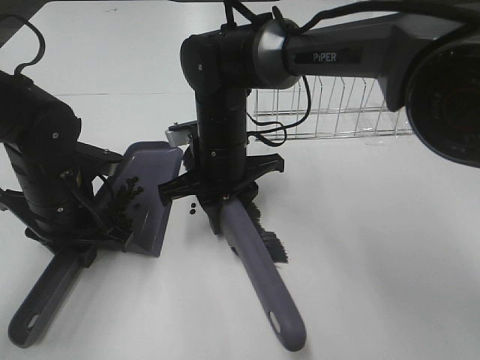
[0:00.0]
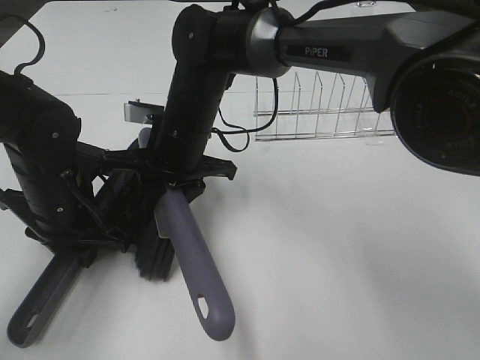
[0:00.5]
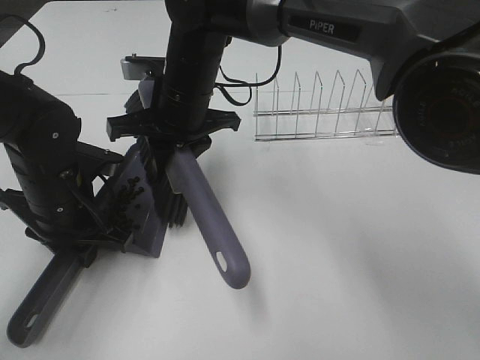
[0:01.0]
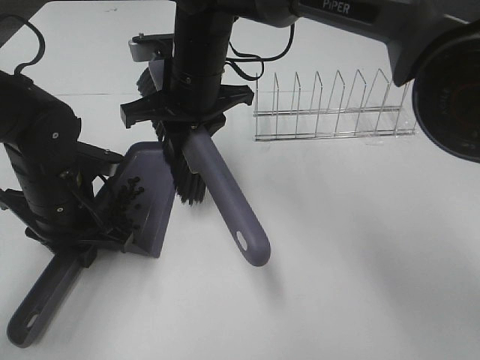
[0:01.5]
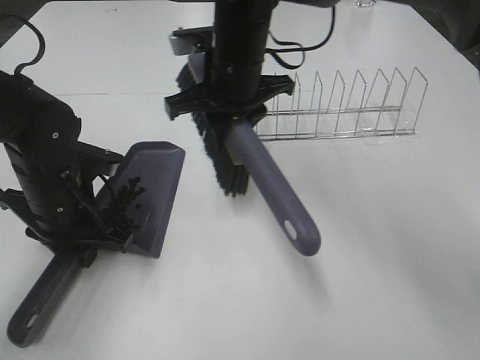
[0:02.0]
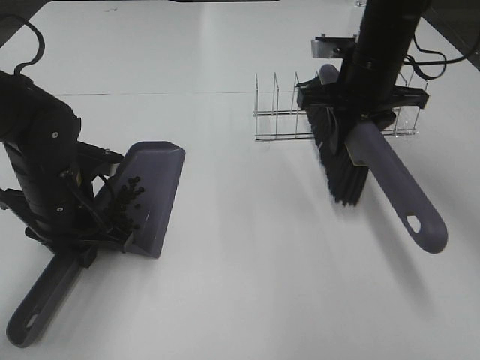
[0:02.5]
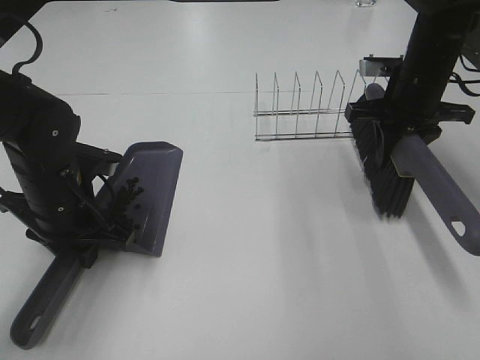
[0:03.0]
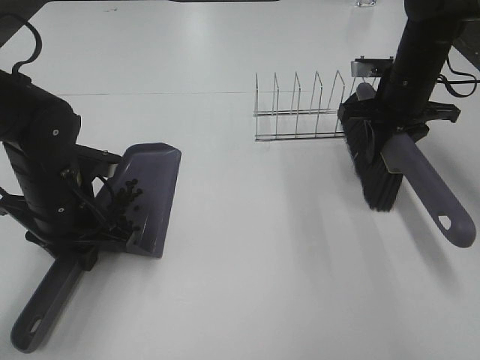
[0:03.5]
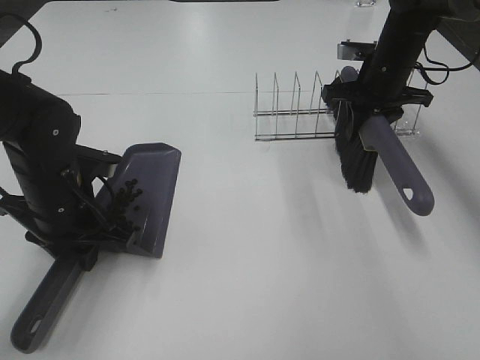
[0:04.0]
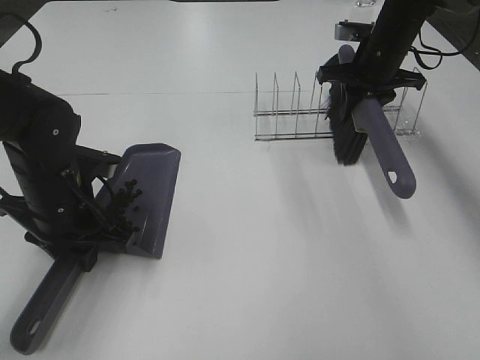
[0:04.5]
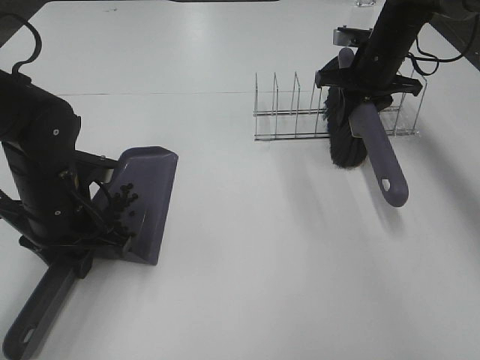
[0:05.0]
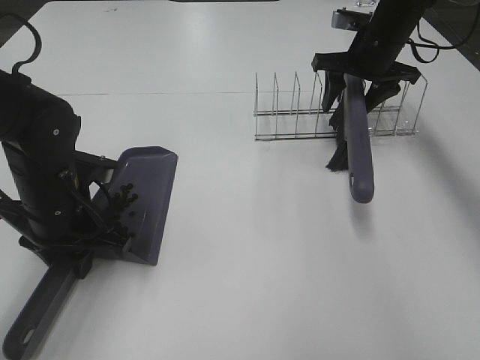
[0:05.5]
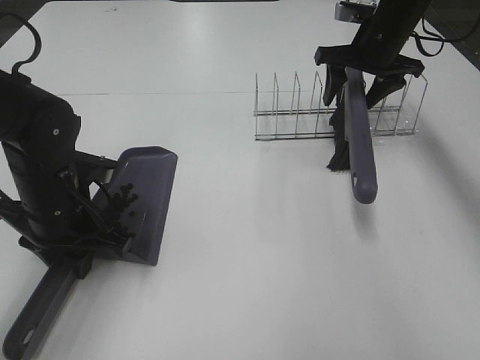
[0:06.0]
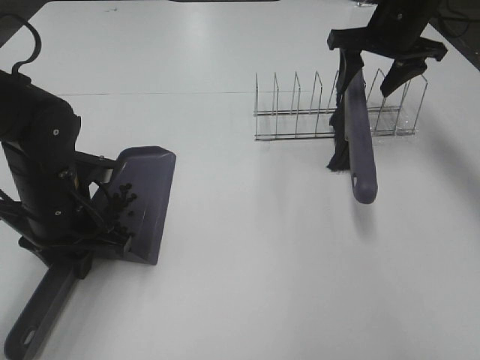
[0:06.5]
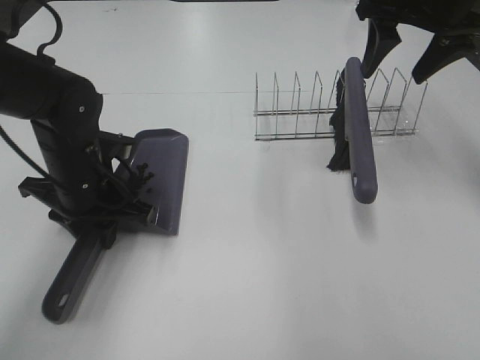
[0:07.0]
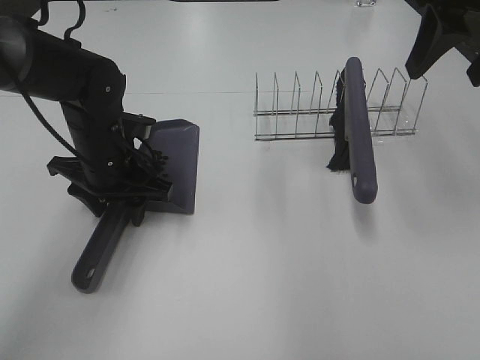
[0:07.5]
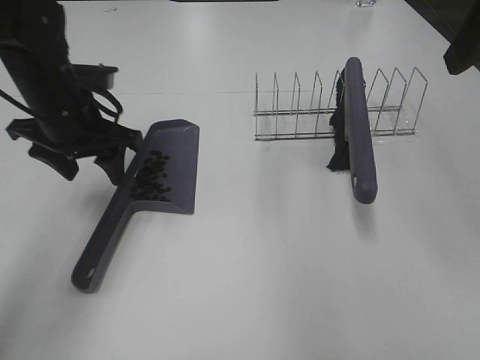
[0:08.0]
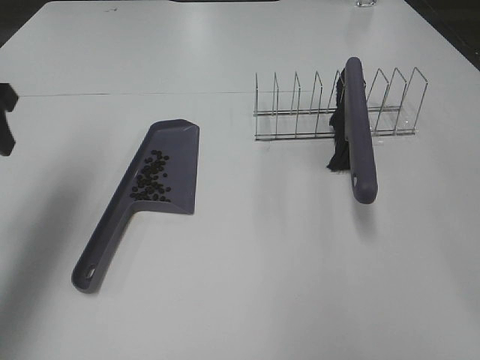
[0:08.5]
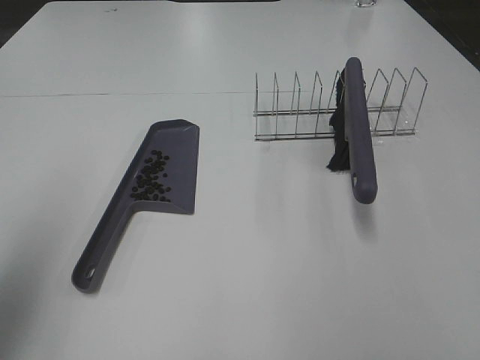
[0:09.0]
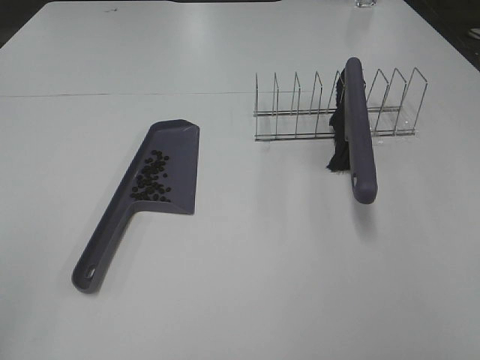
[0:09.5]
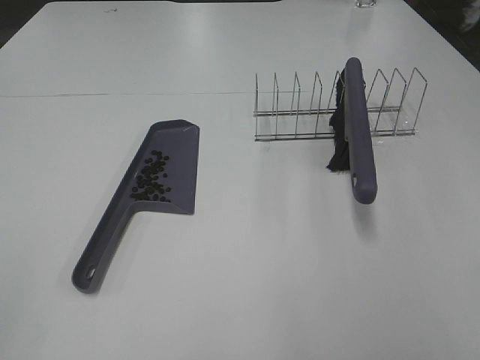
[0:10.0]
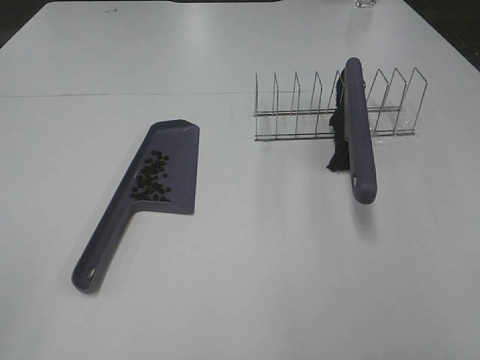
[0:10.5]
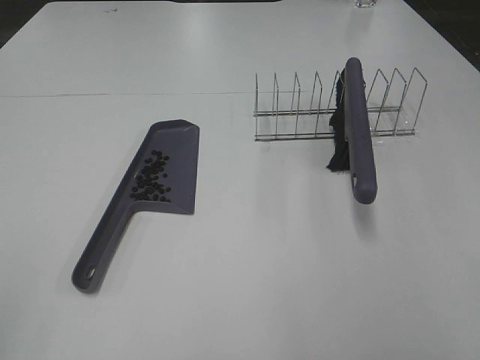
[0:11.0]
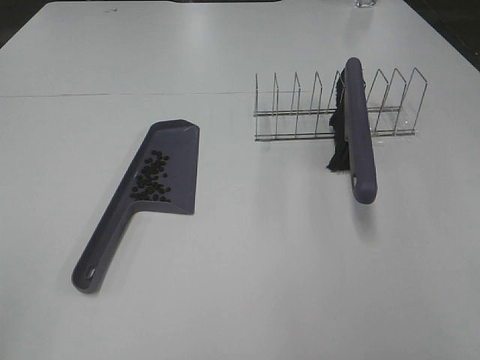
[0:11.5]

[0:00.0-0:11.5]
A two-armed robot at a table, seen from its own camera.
Task of the whole recording: Sweep Coffee Bean.
Step, 0:01.5 to 0:06.0: Right hand:place the broom on the rack.
Step, 0:06.5 to 0:07.5: Left hand:place the dustpan on the table.
0:00.0 to 0:02.0: The right gripper moves upward, about 10 cm.
0:02.0 to 0:04.0: The right gripper shifts approximately 20 cm to the right.
0:04.0 to 0:06.0: The right gripper opens its fingers.
0:06.0 to 0:07.5: The right gripper heads backward and upward, covering about 25 cm. Meanwhile the left gripper goes about 5 cm forward.
0:07.5 to 0:09.5: The left gripper heads backward, upward and to the left, covering approximately 40 cm; the right gripper shifts roughly 35 cm backward.

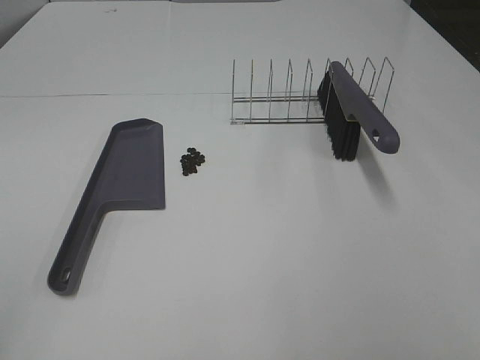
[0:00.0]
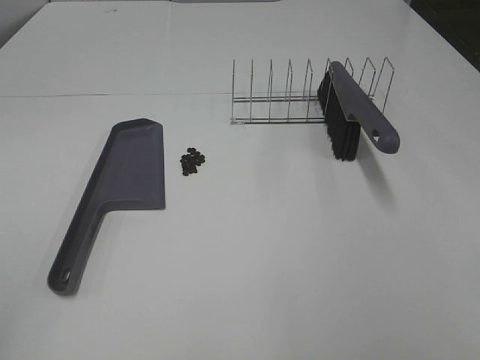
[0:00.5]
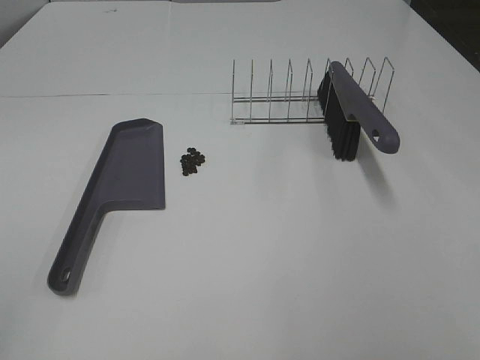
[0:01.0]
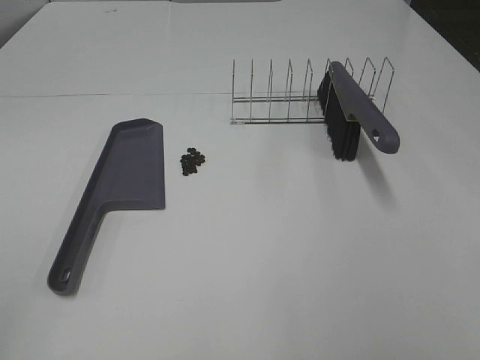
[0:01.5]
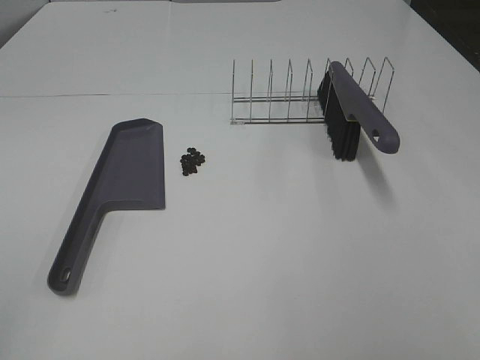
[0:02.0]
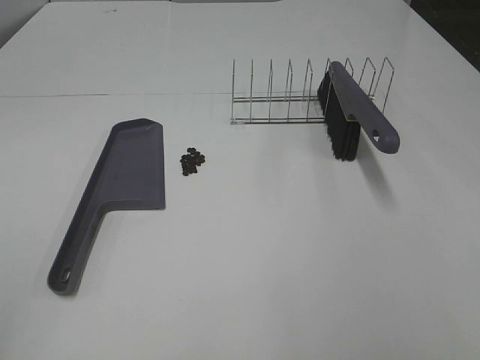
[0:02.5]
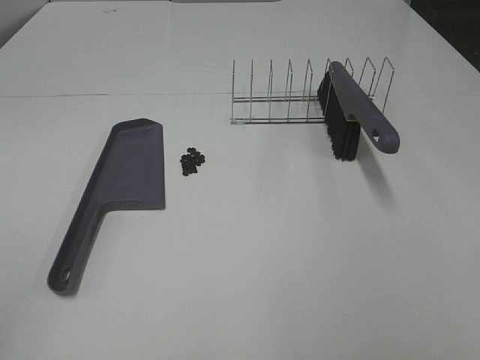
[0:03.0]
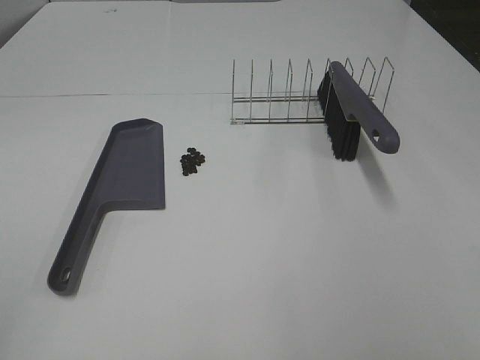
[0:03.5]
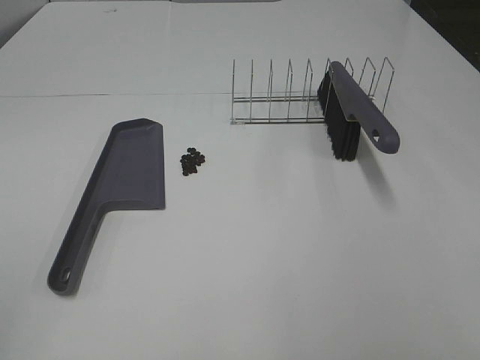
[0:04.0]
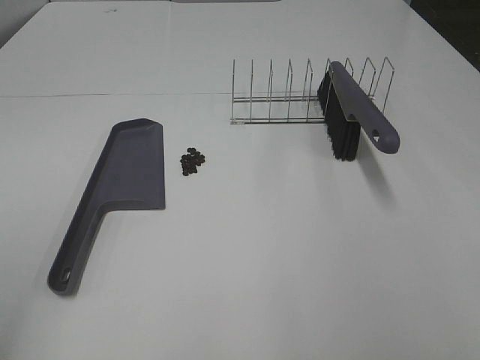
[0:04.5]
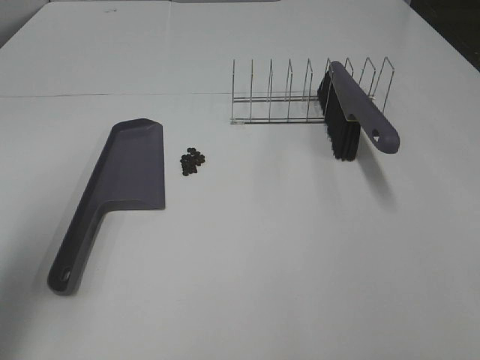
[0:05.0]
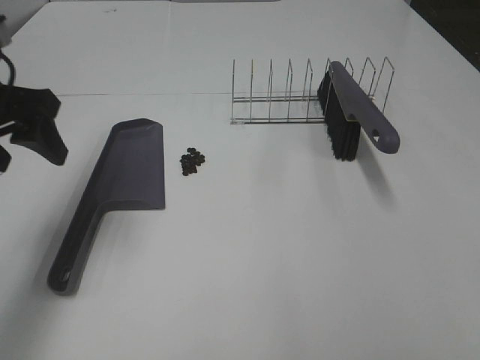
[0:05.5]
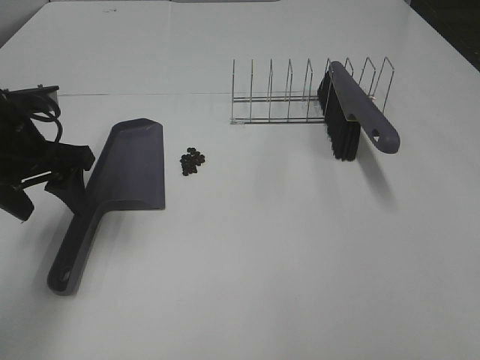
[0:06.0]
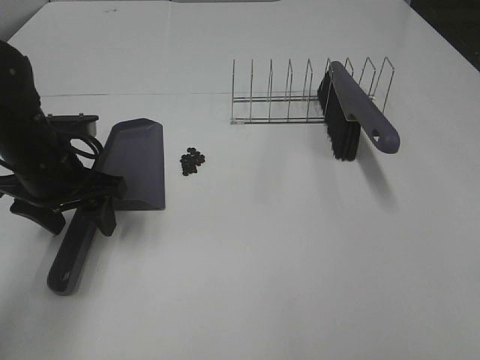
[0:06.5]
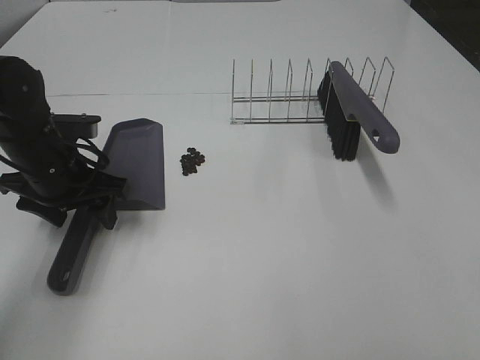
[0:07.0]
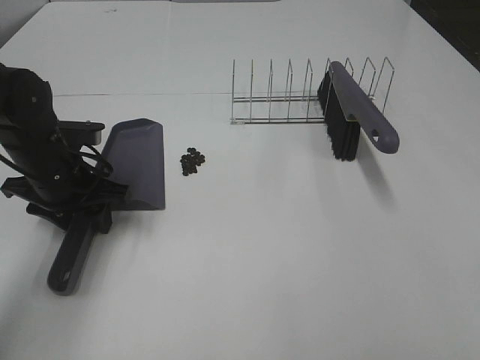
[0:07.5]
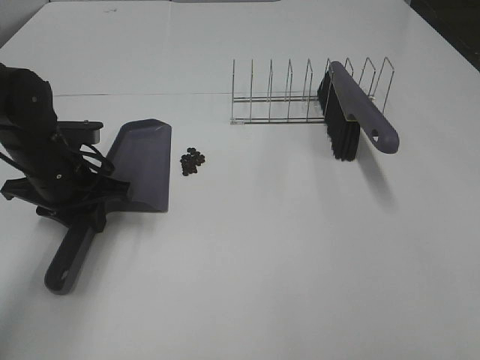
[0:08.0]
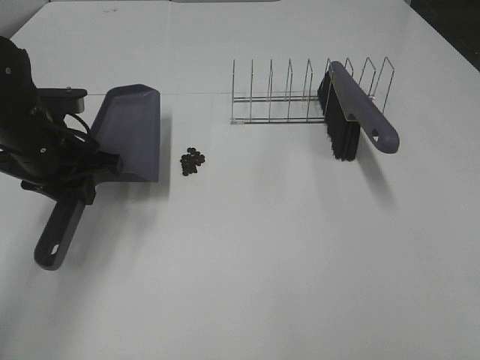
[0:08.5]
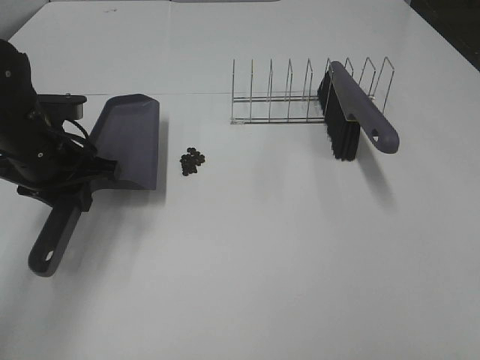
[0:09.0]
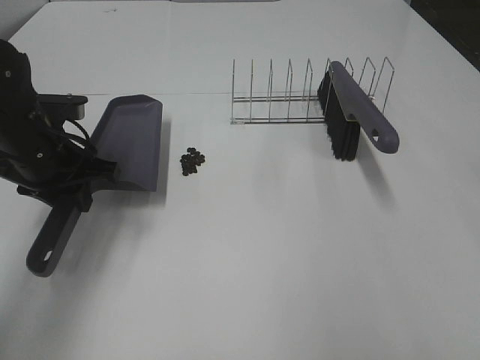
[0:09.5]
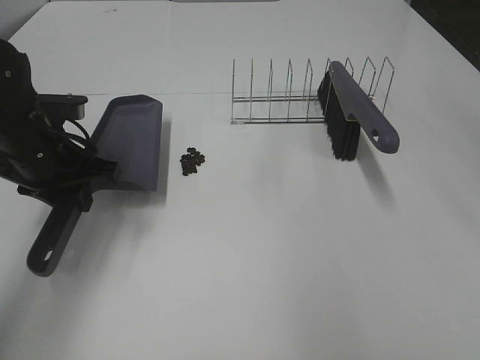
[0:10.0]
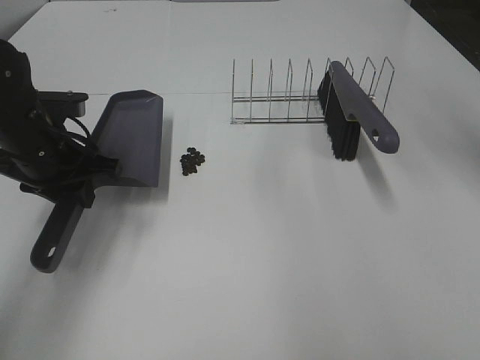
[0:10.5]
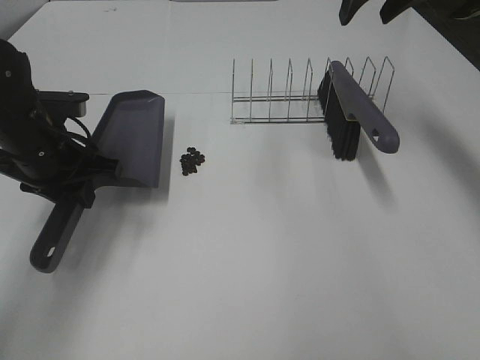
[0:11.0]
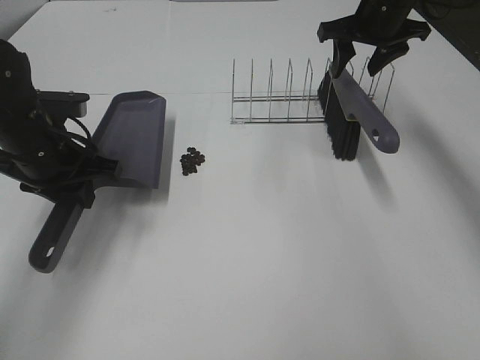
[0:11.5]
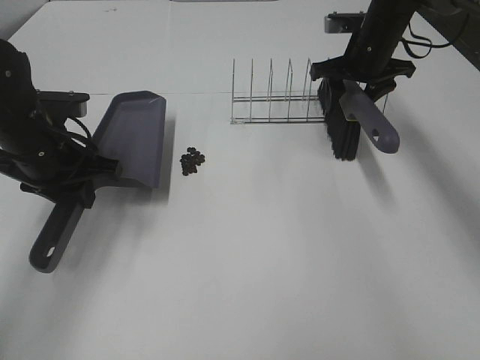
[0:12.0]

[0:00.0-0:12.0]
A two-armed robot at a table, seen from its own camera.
Task of the whole recording: Sweep Coffee Bean.
Step, 0:00.0 to 0:07.5: Left hand: grab the dustpan.
0:00.0 to 0:04.0: Both grippers stay about where they are.
0:04.0 to 0:06.0: The left gripper goes about 30 cm forward.
0:06.0 to 0:08.0: The left gripper is displaced downward by roughly 10 cm, and closes.
0:10.0 to 0:12.0: The right gripper travels forward and downward by about 35 cm, and closes.

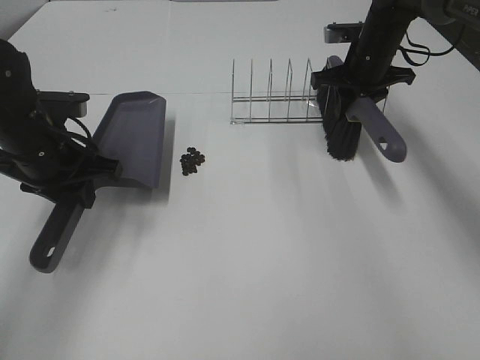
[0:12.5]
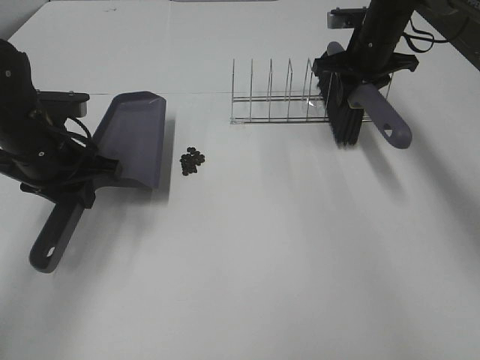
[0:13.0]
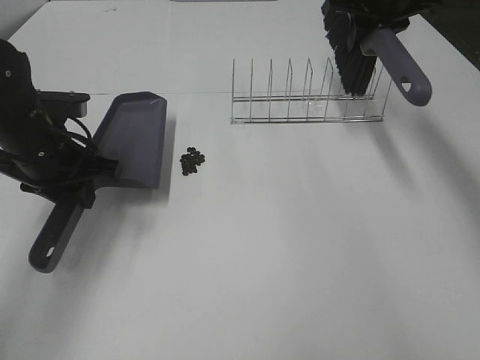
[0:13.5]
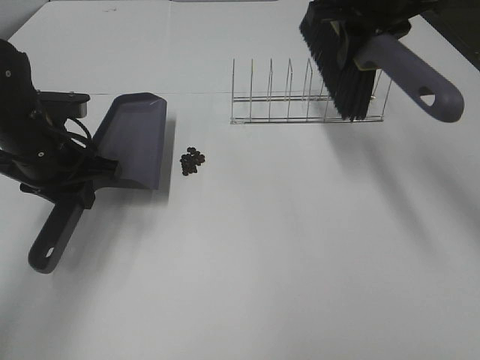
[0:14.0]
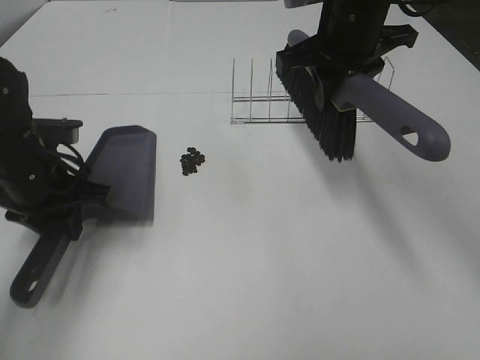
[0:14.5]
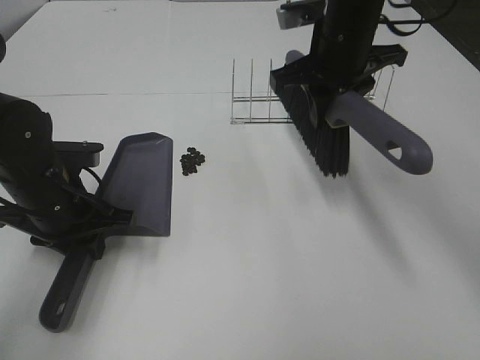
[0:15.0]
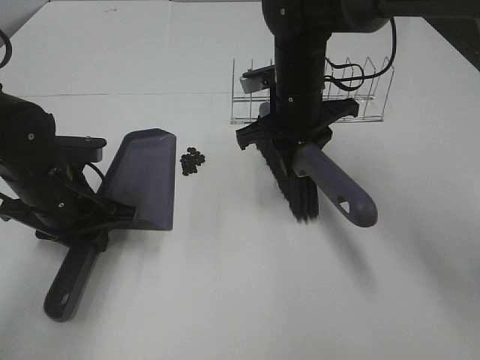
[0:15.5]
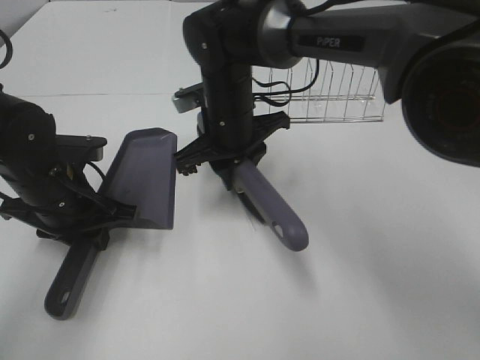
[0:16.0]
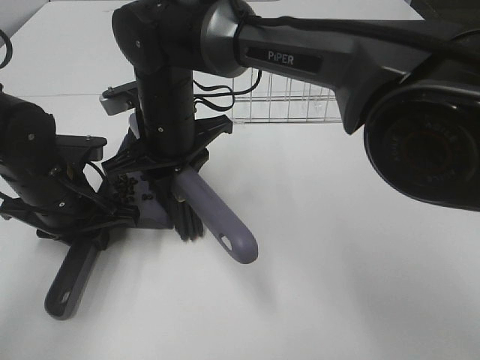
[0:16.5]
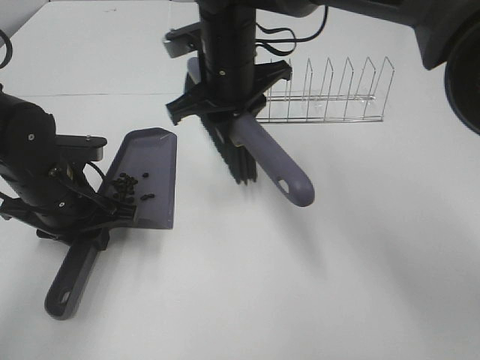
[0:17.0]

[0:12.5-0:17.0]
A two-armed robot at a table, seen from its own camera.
Task of the whole recording: Sweep Coffee Bean.
Step, 0:12.5 to 0:15.0: Left hand: move the dustpan to the left side of the coffee beans.
Step, 0:13.0 to 0:16.5: Right hand:sweep the coffee beans into the dustpan.
0:12.5 to 0:14.5: The right gripper heads backward, upward and to the left, covering approximately 20 cm.
0:14.5 to 0:17.0: The right gripper moves to the left and downward, some 15 cm.
